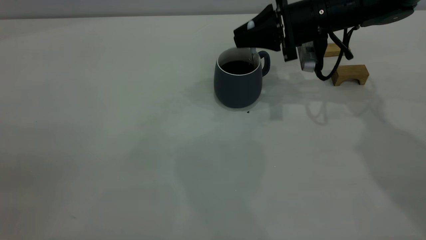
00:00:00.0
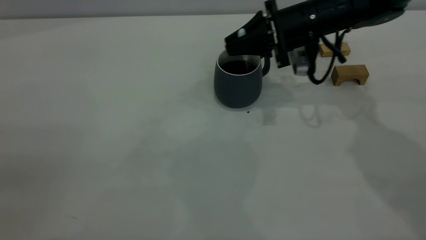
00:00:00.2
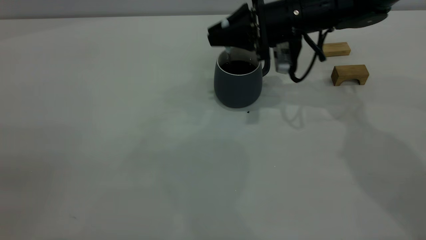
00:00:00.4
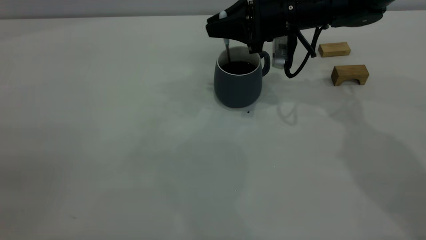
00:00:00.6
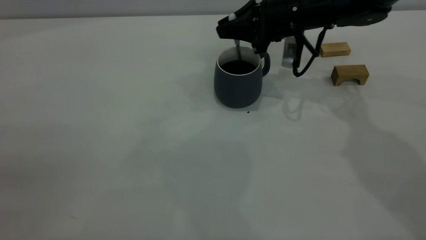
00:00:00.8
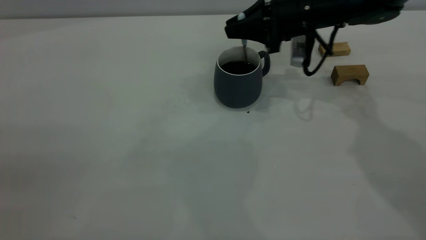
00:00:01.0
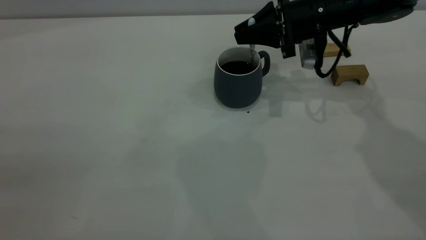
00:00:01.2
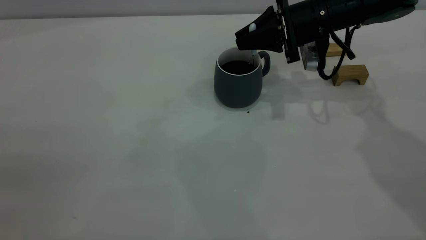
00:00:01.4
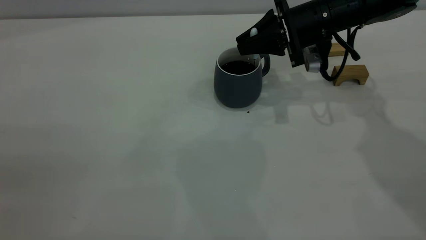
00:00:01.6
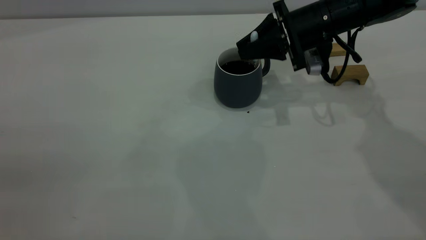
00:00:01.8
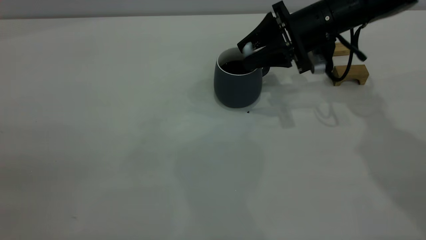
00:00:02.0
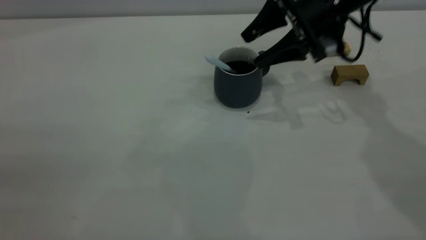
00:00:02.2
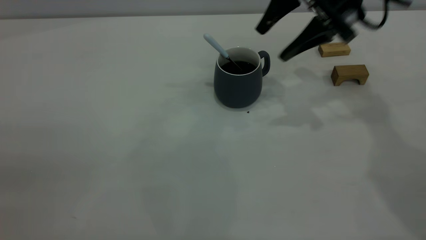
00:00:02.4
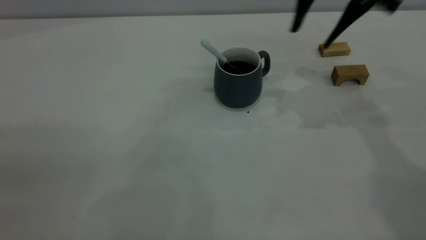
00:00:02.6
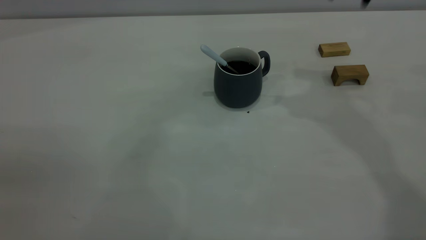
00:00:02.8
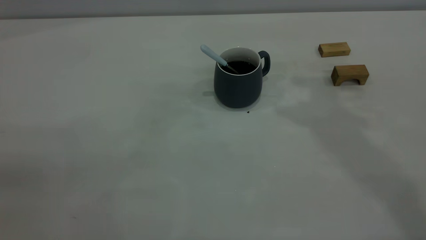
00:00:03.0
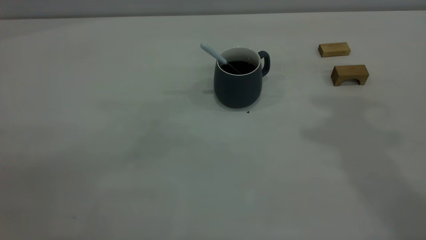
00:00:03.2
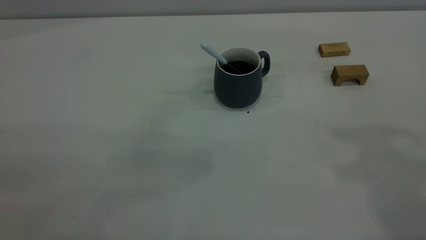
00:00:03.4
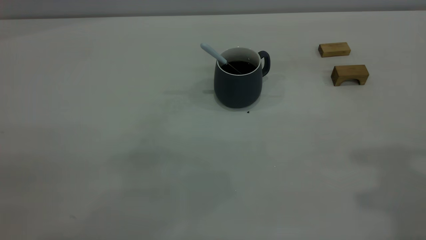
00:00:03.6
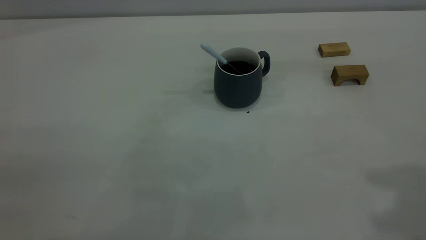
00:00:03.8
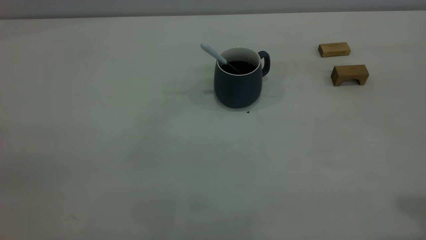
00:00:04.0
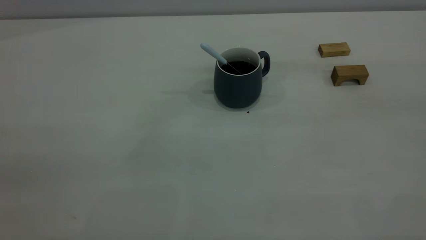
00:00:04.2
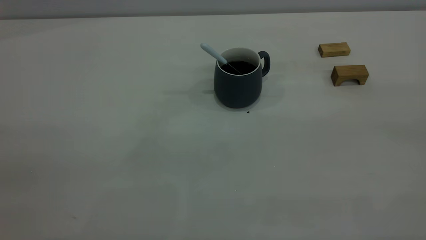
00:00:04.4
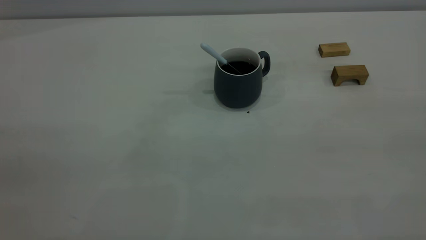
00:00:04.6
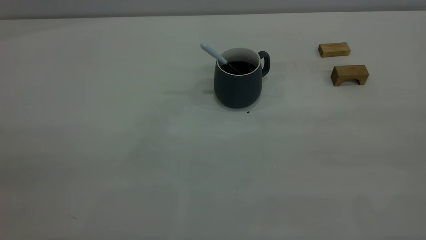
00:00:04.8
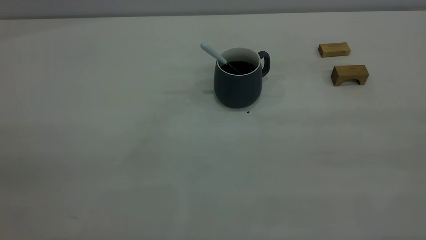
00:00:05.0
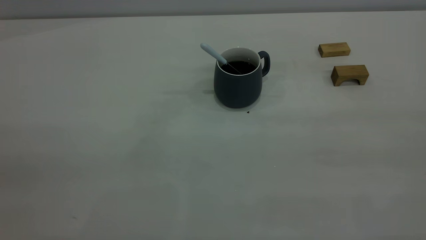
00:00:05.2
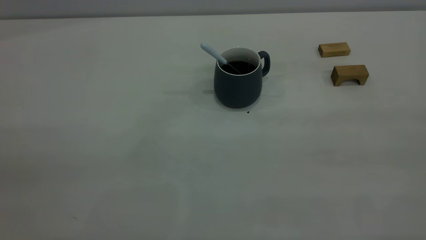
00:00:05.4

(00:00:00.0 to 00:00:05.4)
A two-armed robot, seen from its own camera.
Step, 00:00:00.0 - 00:00:02.2: Stir the coffee in the cup.
00:00:00.0 - 00:00:01.4: The grippers move only a little.
00:00:01.4 - 00:00:02.8: The right gripper travels upward by about 25 cm, and opens up.
